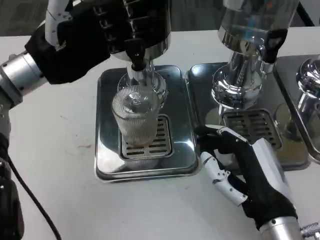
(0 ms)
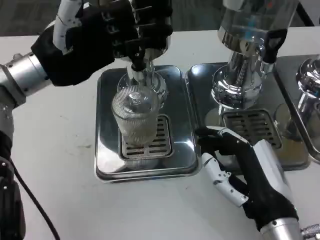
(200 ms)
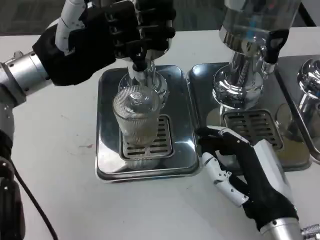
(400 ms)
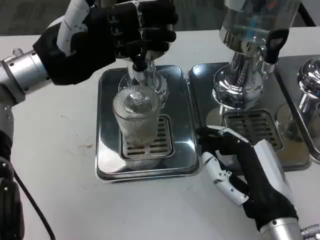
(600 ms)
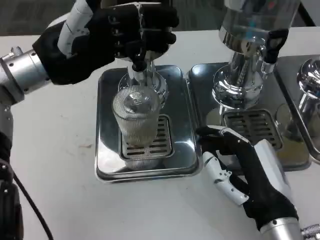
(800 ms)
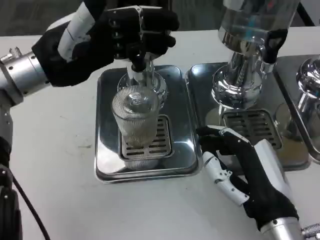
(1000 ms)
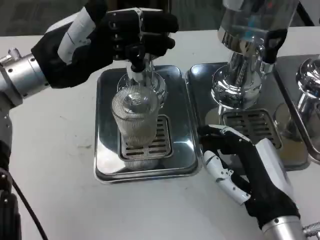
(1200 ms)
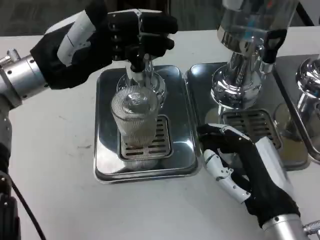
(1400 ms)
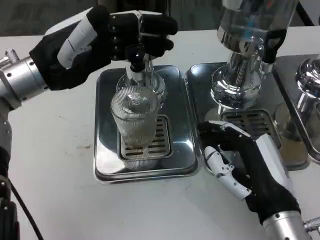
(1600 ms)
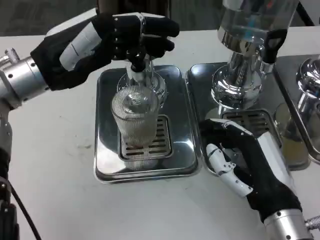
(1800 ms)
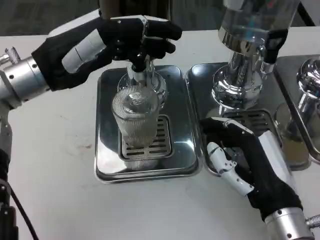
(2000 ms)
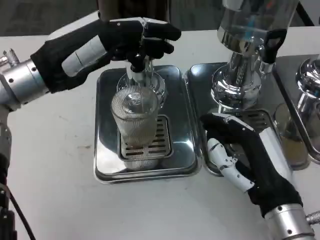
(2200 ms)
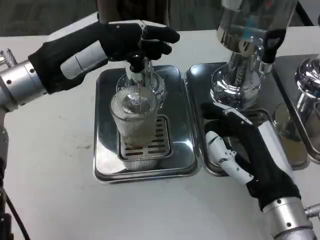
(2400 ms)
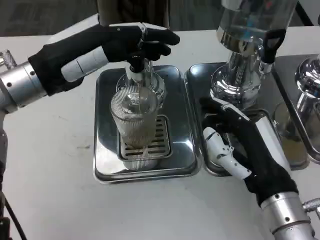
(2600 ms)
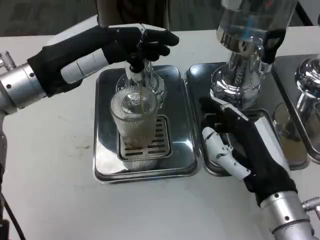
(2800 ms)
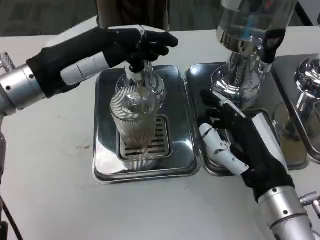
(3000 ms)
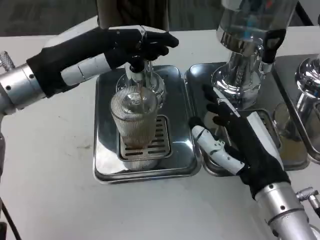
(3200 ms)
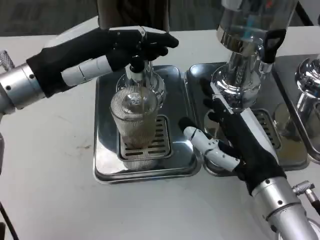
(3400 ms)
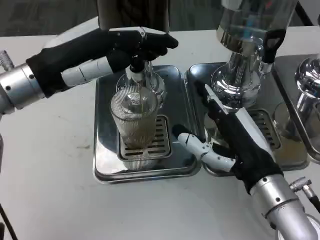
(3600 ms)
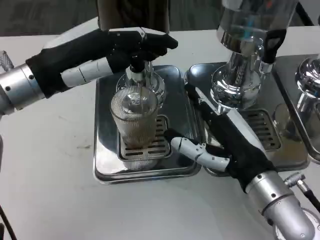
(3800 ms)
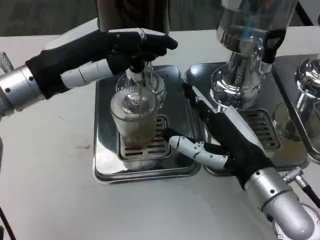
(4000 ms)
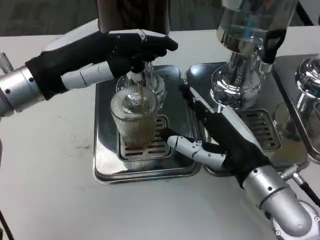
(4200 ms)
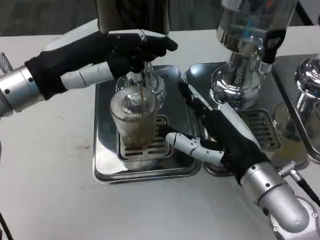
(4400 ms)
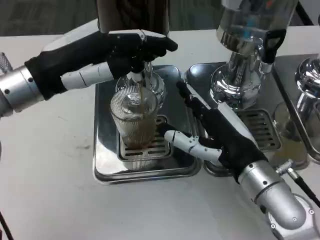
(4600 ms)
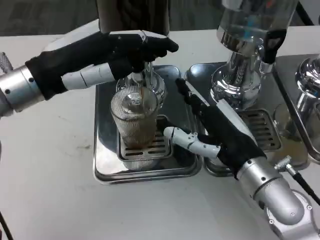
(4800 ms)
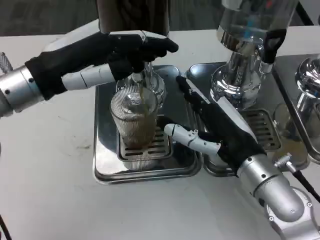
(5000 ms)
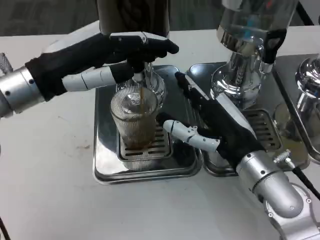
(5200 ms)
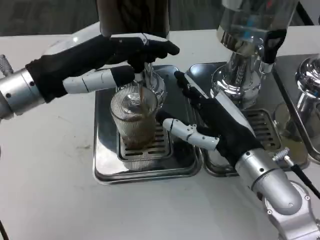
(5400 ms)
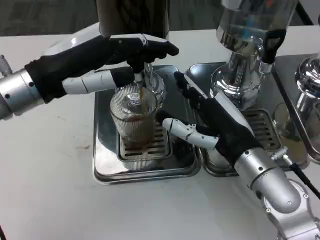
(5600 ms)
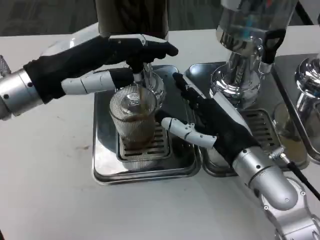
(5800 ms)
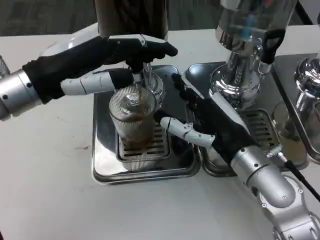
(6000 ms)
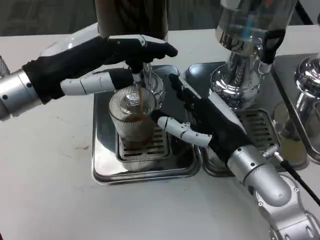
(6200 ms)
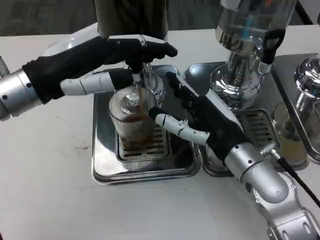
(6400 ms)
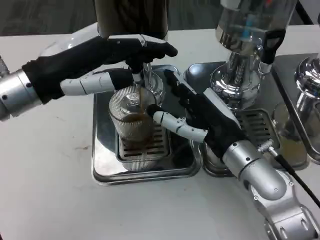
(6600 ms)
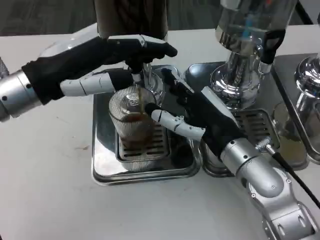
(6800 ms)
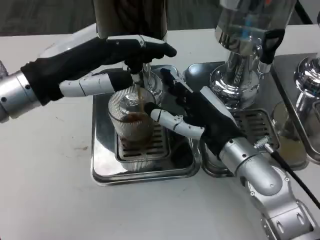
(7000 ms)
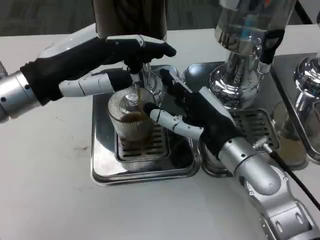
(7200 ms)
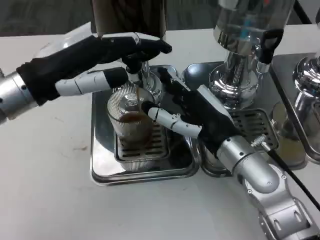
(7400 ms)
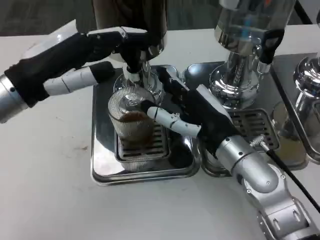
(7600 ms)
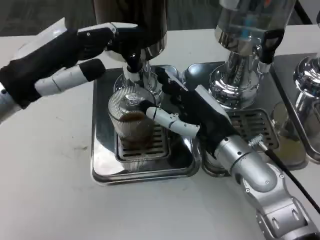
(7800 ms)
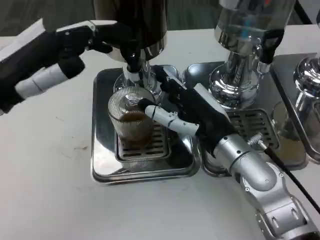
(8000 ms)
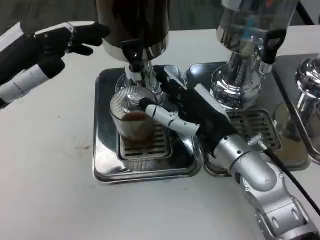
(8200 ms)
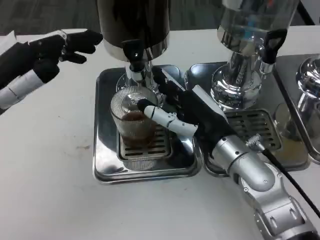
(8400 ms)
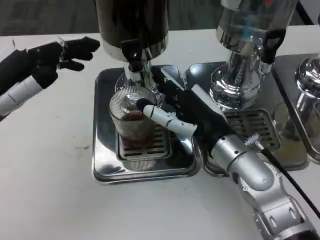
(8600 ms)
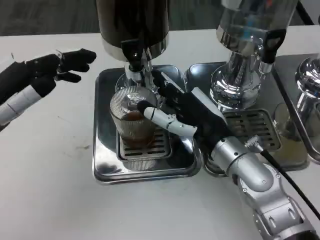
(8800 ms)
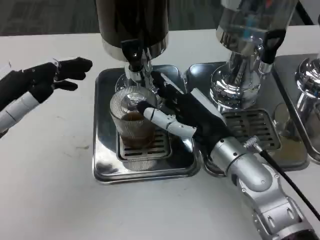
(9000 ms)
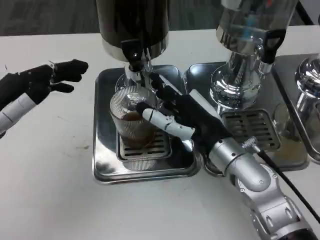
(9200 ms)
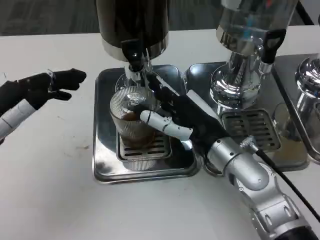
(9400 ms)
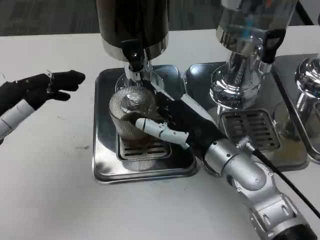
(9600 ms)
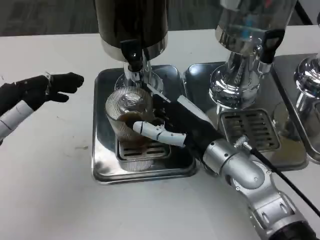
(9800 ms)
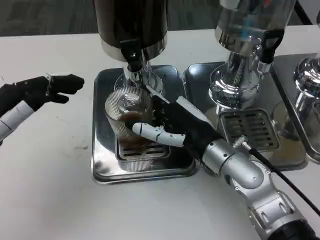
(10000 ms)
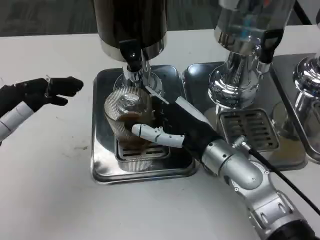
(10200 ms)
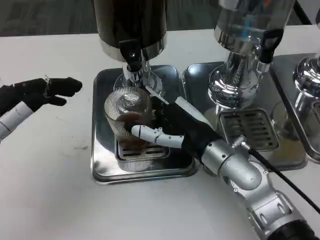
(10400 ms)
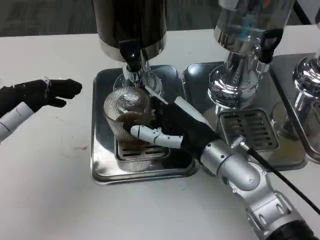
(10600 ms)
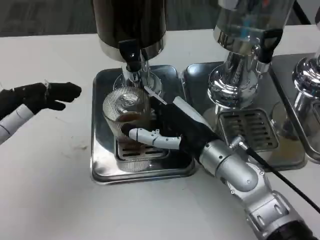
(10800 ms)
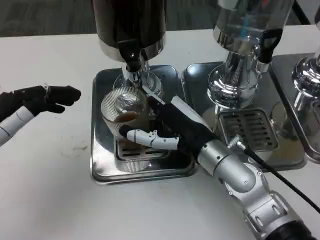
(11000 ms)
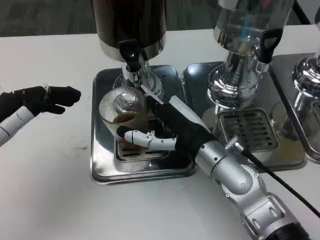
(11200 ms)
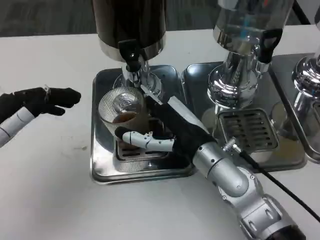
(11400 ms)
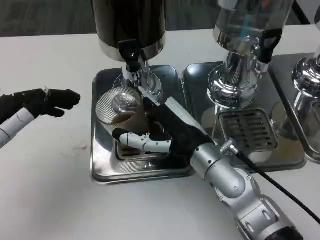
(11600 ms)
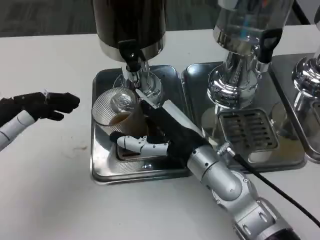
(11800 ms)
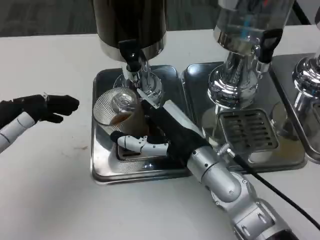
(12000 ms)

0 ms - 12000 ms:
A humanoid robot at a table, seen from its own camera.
Task of the whole recording: Grasp the cup under the faucet to collect the drink, then remove the cup.
3000 ms - 4400 ms: The hands make only small movements.
4400 ms - 6000 ms: There are only small adjustments of the hands.
7600 ms - 9000 ms: The left hand goes some 10 cm backward and to the left.

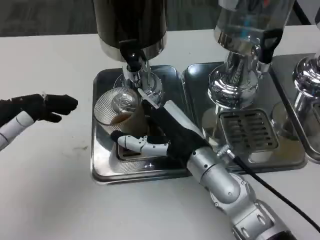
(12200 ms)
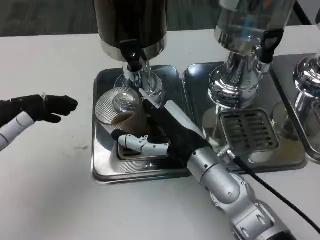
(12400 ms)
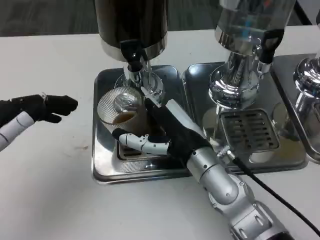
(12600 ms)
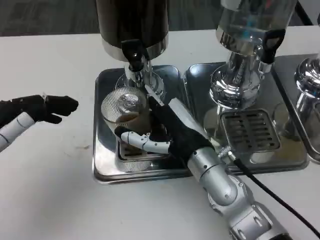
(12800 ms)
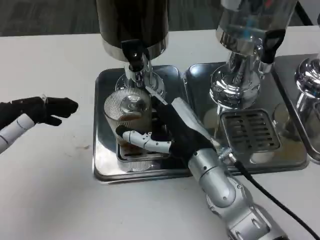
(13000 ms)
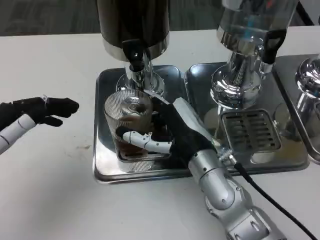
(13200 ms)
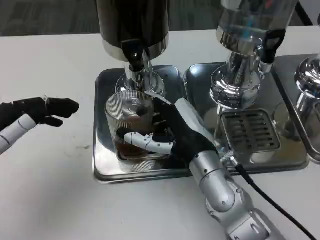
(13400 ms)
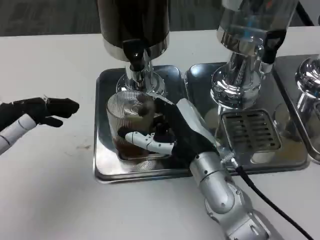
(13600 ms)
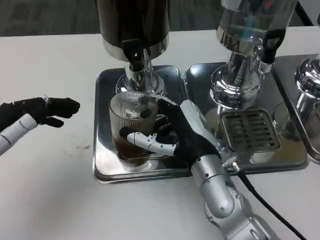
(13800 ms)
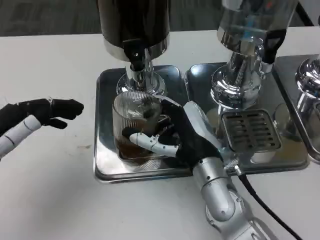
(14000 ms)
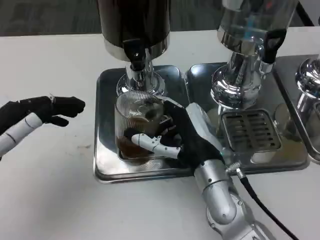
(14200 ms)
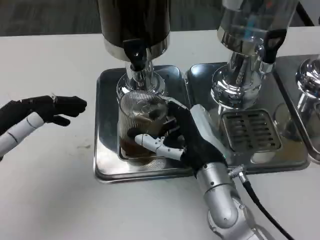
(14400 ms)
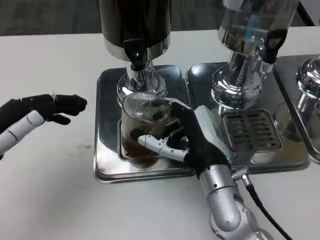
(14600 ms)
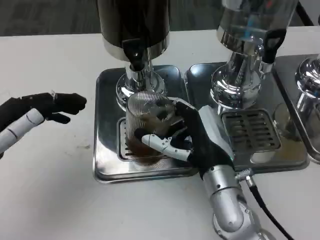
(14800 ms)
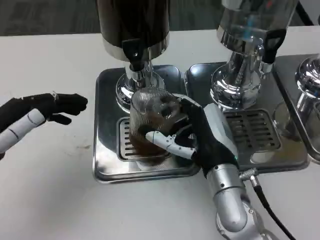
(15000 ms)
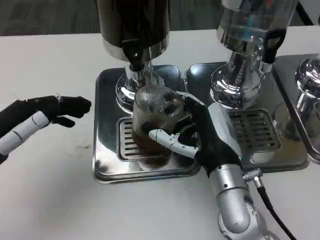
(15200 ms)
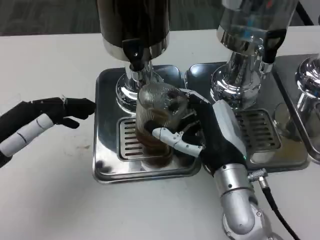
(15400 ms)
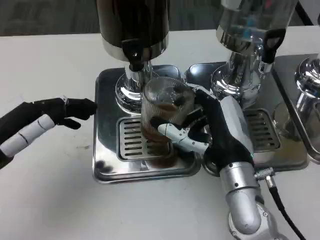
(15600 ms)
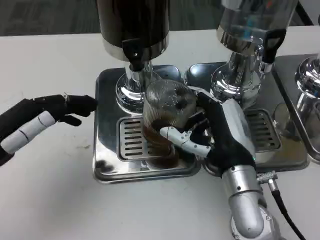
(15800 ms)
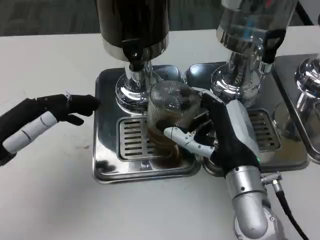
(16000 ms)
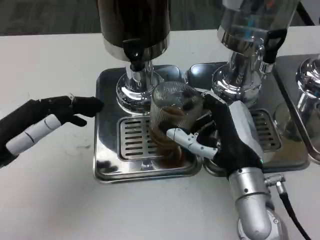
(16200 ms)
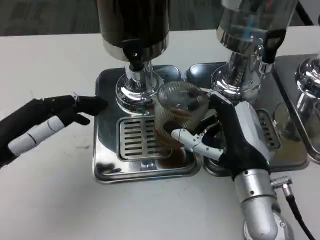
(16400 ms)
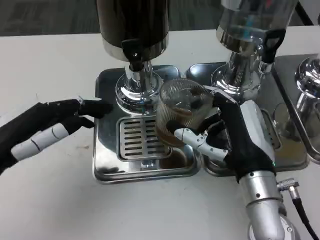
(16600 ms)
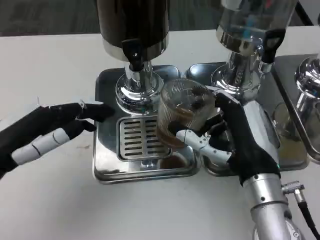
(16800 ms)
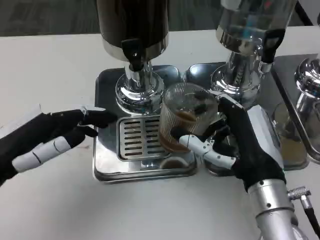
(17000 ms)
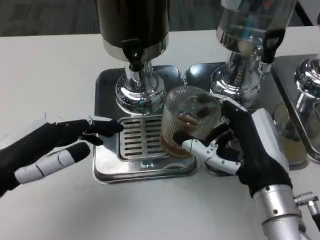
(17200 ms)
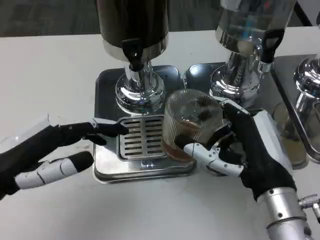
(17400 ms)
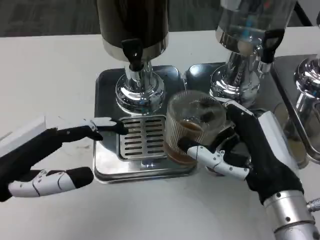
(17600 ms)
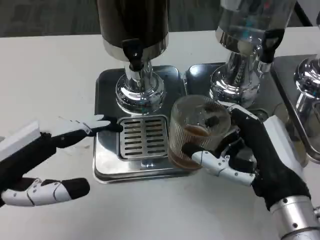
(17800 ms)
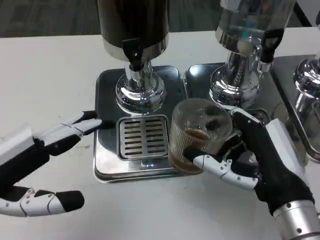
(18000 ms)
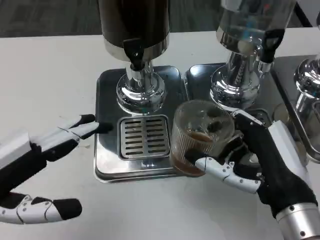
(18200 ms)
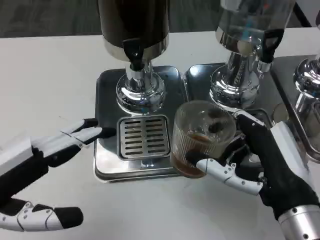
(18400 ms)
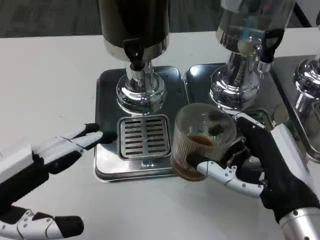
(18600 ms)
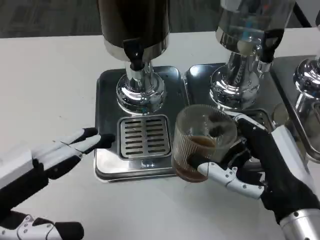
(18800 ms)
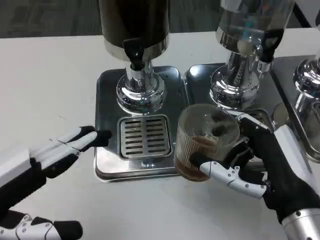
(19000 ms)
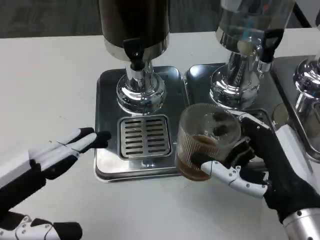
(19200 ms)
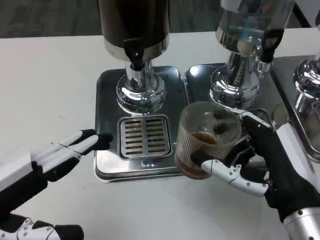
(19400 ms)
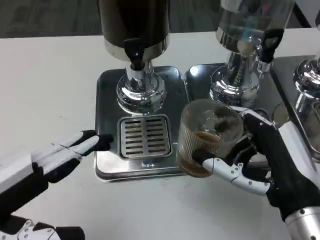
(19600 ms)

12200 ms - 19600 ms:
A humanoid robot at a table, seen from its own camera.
Task of the whole recording: Grasp the cup under the faucet to collect the drink, then remove the cup.
13600 ms - 15200 ms: There are only small adjustments of the hands.
16600 ms - 18200 ms: The two hands go some 5 cm backward.
18200 ms - 19600 ms: The hands move only a little.

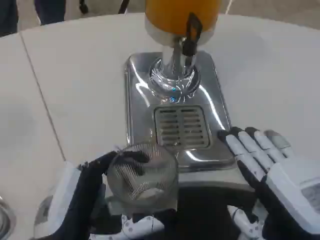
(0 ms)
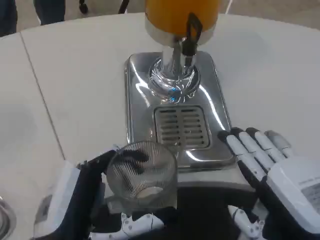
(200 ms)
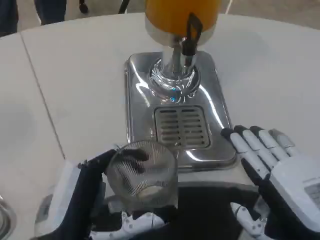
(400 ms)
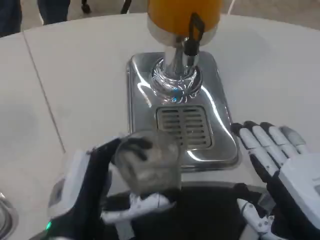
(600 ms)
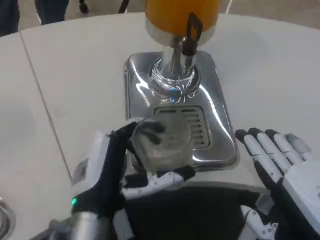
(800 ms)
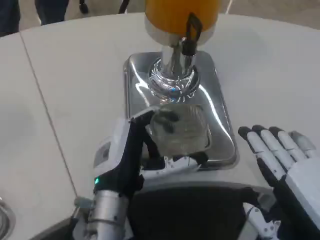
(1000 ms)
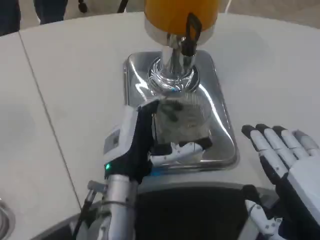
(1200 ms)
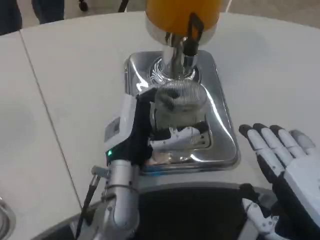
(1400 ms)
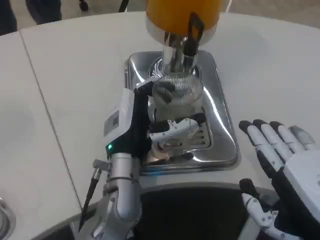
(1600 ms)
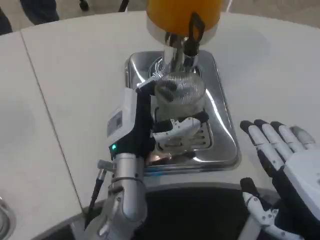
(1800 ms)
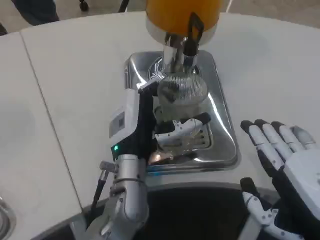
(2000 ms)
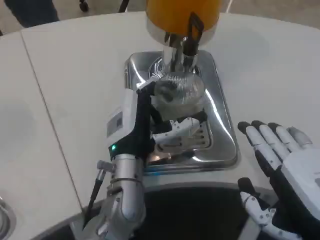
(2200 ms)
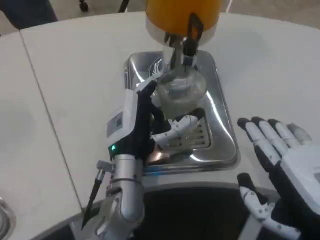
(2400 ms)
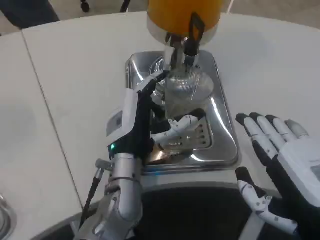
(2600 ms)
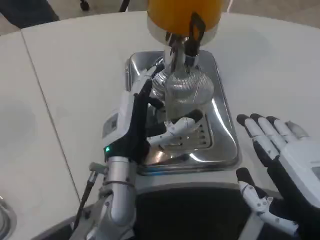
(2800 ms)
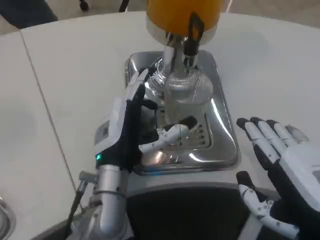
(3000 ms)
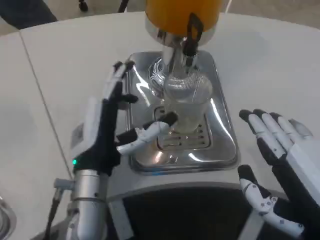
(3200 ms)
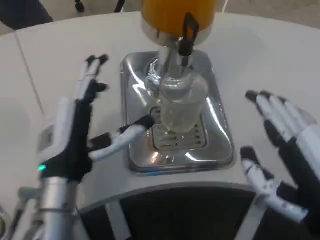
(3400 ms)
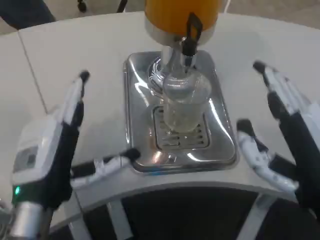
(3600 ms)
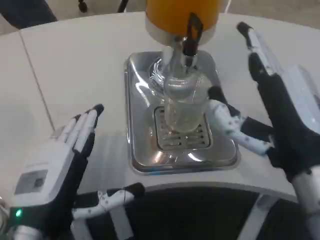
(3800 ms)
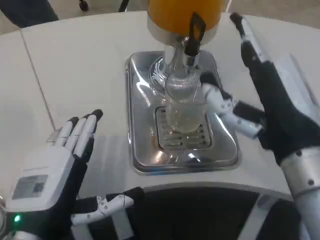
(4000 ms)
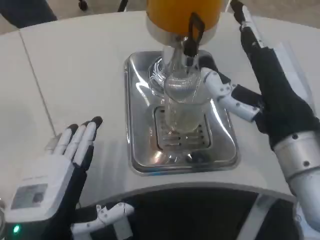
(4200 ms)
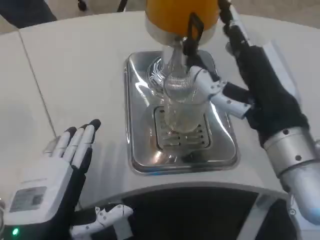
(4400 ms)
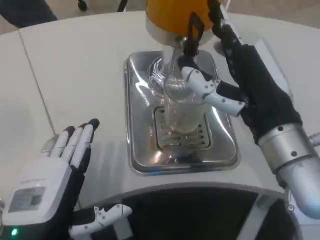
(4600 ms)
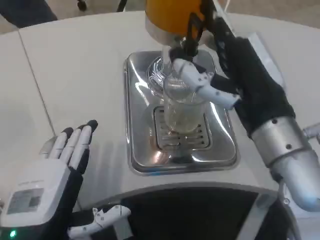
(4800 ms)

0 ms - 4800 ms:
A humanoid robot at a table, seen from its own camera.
Task of the whole recording: Grasp the cup under the faucet to collect the drink, then remove the cup.
0 ms - 1600 ms: The left hand heads forward and to the right, covering some 20 cm.
1600 ms - 3200 ms: The left hand shifts roughly 5 cm to the left.
3200 ms - 4800 ms: The right hand travels forward, to the left and upward by roughly 15 cm; the left hand is displaced backward and to the left by about 15 cm.
